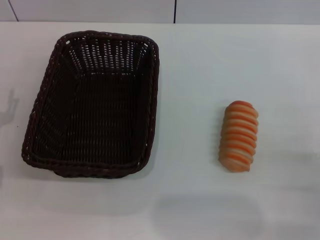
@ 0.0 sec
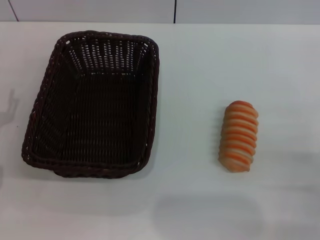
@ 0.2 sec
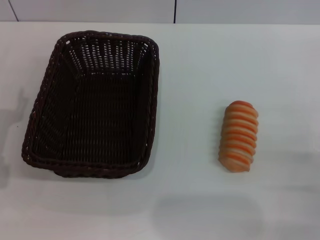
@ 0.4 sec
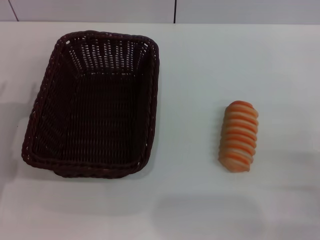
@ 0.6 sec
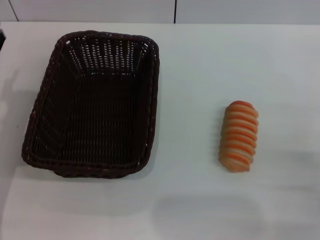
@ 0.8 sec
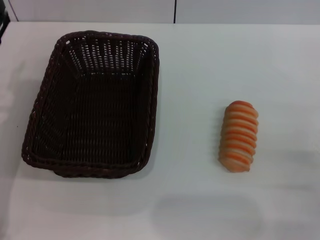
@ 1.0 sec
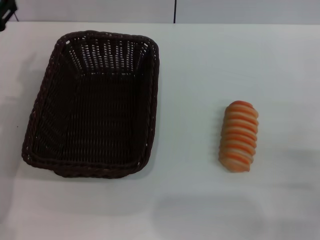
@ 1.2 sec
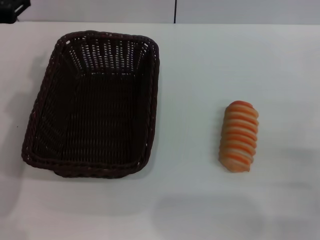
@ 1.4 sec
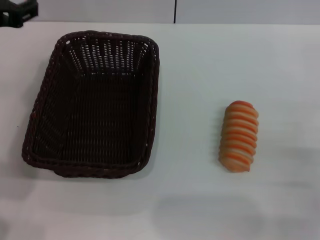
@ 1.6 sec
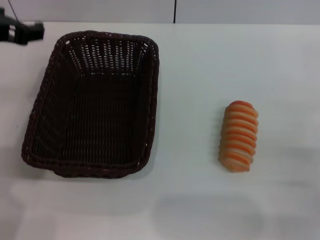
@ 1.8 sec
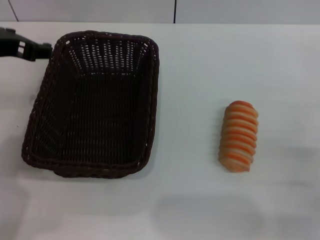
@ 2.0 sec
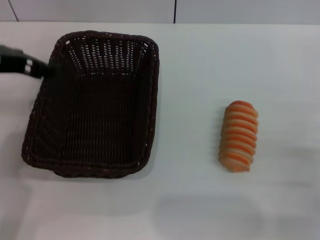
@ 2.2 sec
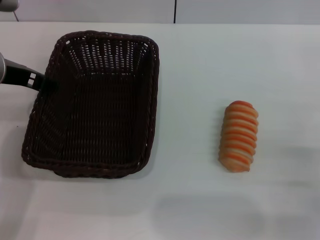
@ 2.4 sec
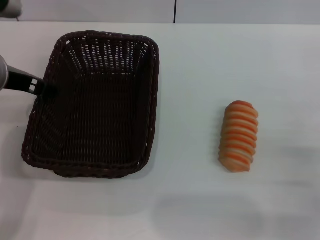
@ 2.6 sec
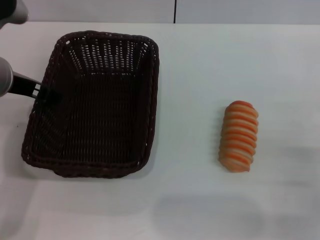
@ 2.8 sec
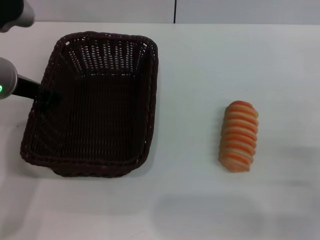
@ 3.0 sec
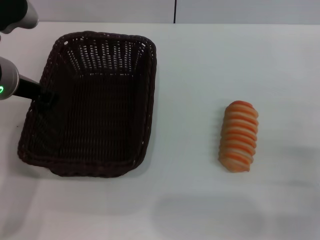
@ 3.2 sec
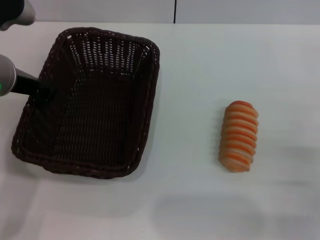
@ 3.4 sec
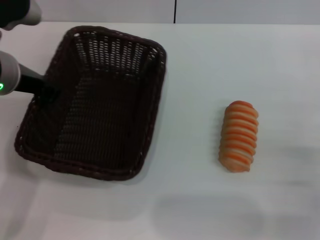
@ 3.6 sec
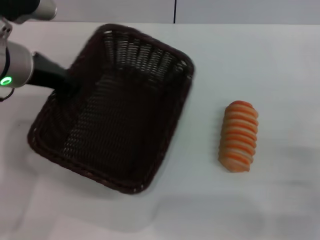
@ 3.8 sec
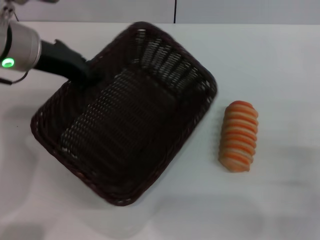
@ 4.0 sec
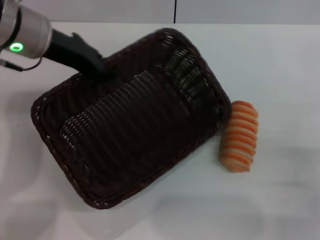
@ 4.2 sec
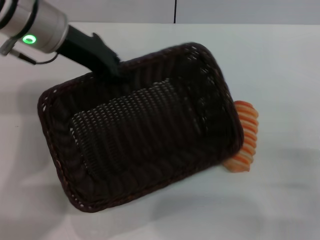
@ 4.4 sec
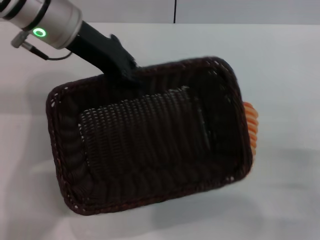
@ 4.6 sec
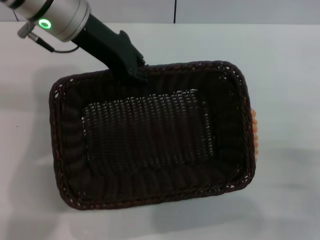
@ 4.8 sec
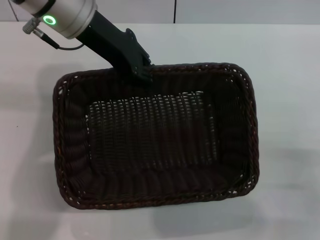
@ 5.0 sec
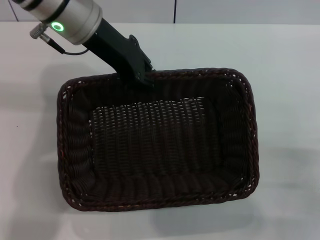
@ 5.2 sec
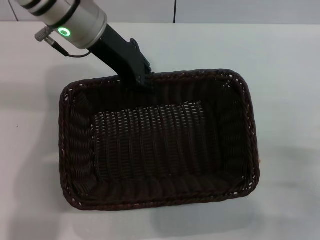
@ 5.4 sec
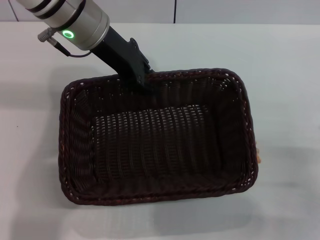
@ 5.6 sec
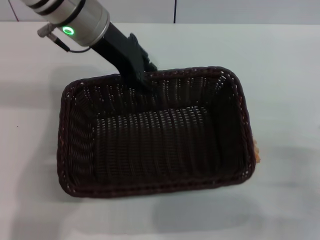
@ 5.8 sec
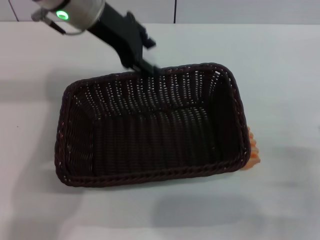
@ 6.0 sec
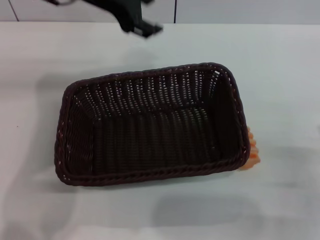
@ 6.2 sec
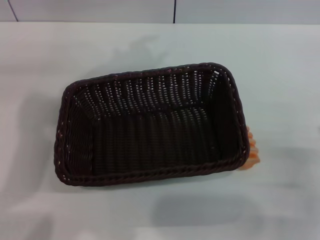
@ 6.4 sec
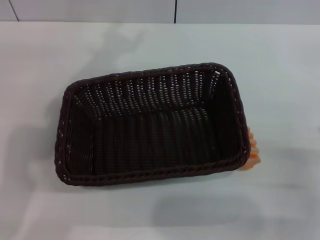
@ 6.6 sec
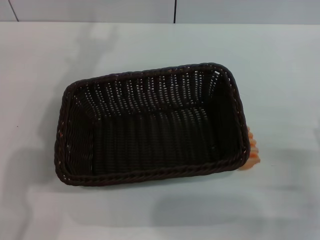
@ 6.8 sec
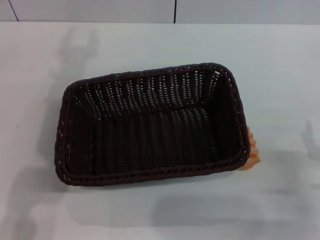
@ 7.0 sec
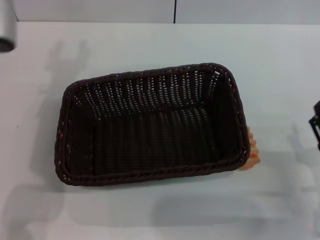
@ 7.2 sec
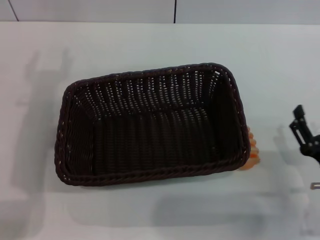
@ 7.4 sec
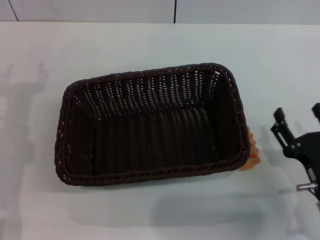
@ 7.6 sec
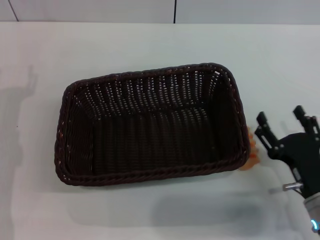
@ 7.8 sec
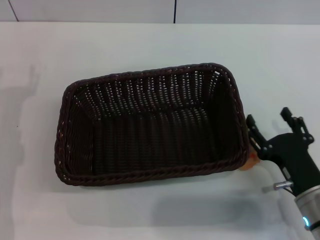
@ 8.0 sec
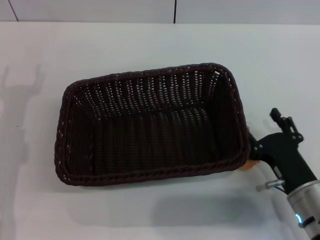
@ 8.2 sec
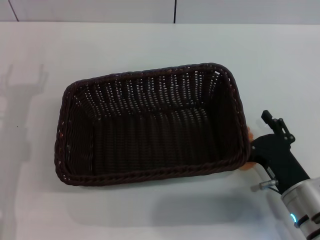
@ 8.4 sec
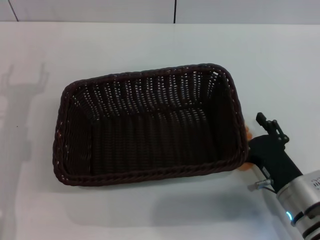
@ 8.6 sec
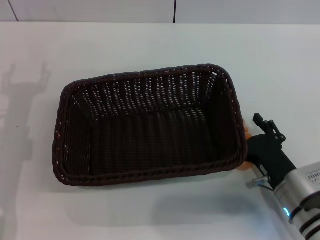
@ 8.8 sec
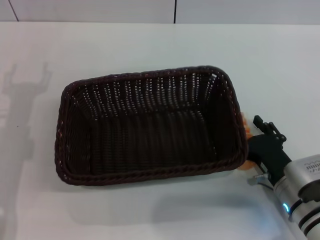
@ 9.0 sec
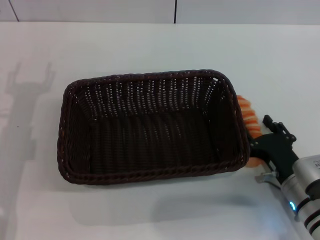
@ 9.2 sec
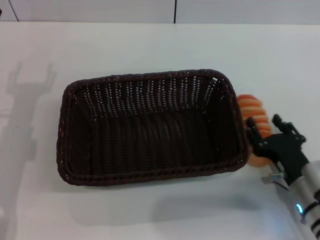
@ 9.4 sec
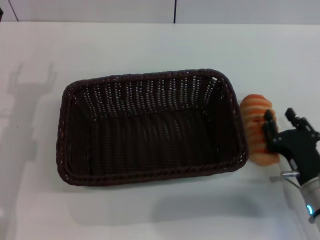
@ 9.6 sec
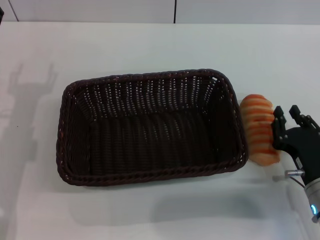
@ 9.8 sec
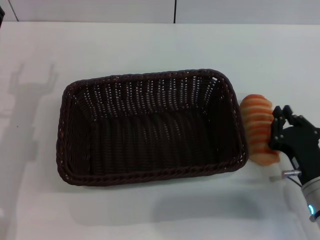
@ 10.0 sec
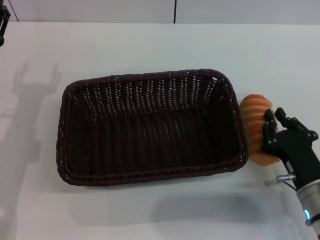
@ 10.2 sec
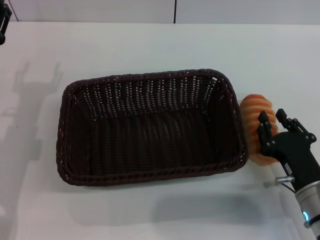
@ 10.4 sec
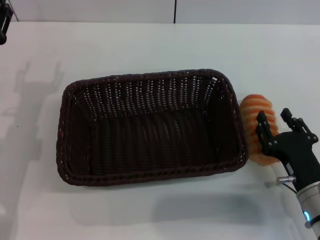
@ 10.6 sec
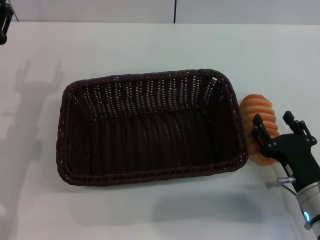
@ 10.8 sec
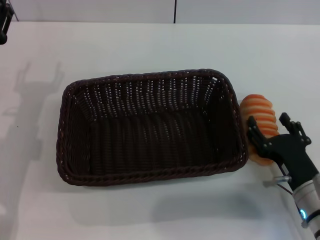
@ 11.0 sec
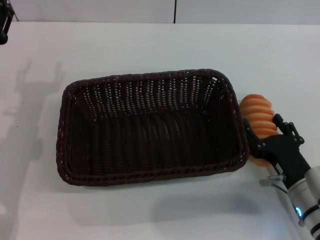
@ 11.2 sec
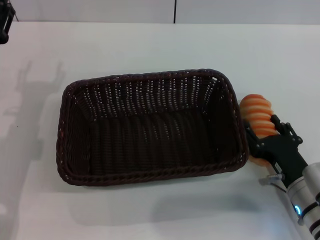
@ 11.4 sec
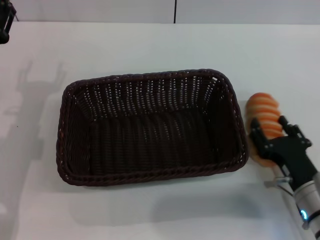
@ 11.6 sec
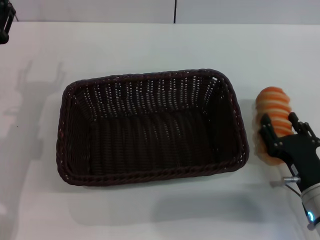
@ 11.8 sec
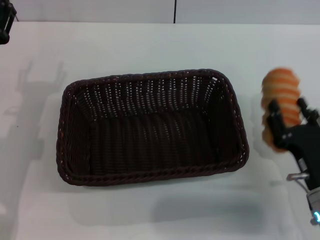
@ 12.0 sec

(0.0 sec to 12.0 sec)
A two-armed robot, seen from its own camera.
Step, 0.0 sec - 3.2 sec: Grasp the basket with the left gripper.
Step, 3.4 sec - 6.0 sec: Place the basket in the center of the table with the left gripper.
Step, 6.4 sec - 11.4 sec: Grasp the long bread with right gripper.
0.0 sec - 1.6 sec: The left gripper is displaced upward and to the right by some 20 cm.
1.6 sec - 3.0 sec: The left gripper shifts by some 5 cm.
3.0 sec - 4.4 sec: The left gripper is displaced forward by some 5 cm, and closes up.
4.4 sec - 6.0 sec: The left gripper goes approximately 5 cm to the right, and opens.
6.0 sec - 7.6 sec: The right gripper ends up about 5 cm from where it was; the left gripper is displaced to the left, backward and downward by approximately 25 cm, and opens up.
7.6 sec - 9.0 sec: The right gripper shifts by some 5 cm.
9.0 sec - 10.4 sec: The right gripper closes its fingers.
10.4 sec - 12.0 sec: The right gripper opens its fingers.

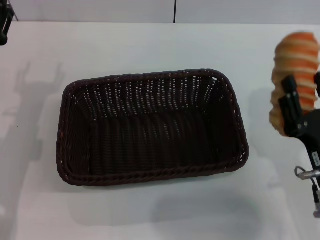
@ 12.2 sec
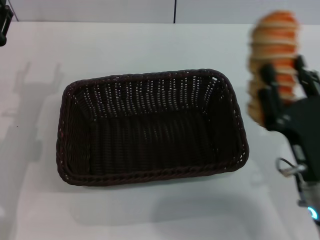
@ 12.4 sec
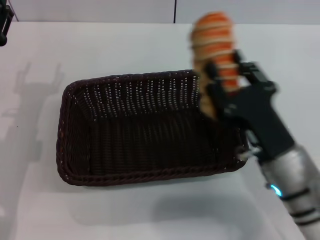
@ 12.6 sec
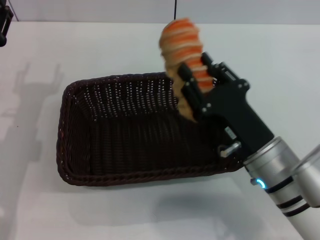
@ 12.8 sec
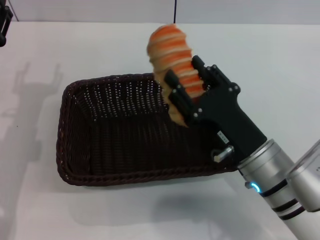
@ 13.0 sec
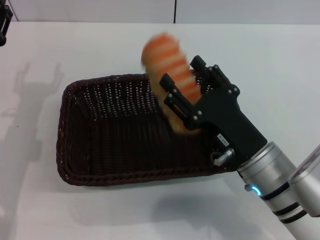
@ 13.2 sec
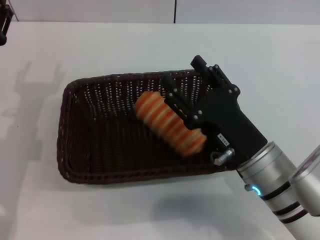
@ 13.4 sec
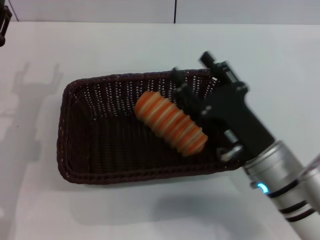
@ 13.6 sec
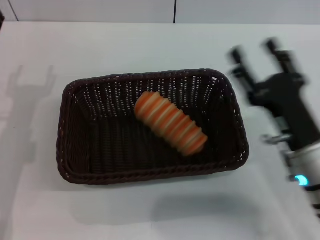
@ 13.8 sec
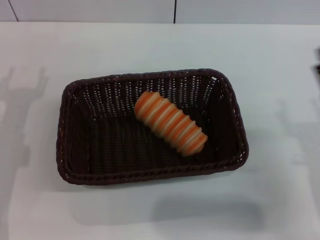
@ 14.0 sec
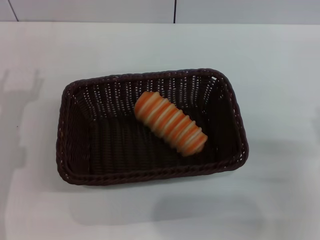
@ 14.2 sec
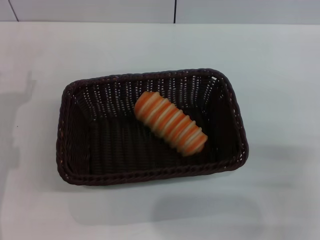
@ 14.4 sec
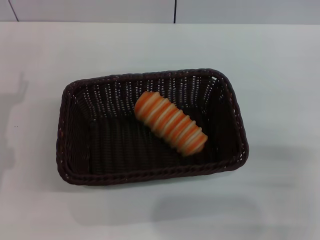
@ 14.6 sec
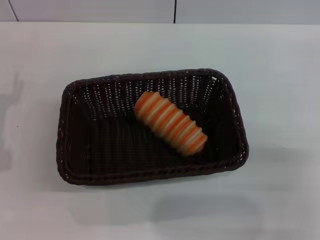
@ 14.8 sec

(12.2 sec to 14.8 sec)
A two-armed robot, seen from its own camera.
Step, 12.2 sec - 13.8 sec: Place the long bread in the basket with right gripper.
12.2 sec - 13.4 sec: The right gripper travels to the left by approximately 10 cm.
13.4 sec - 14.8 sec: The left gripper moves about 5 cm. Meanwhile the right gripper is displaced to the right by about 15 cm.
